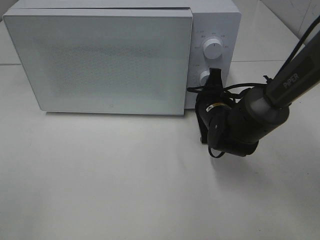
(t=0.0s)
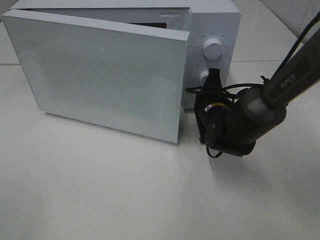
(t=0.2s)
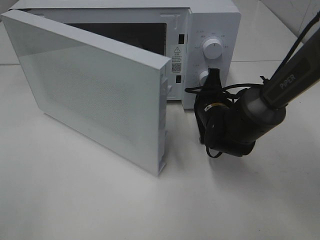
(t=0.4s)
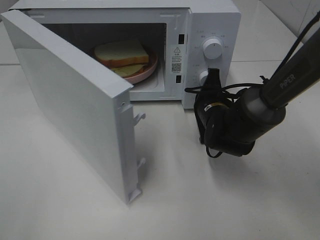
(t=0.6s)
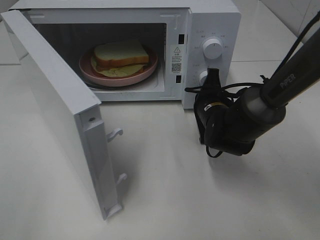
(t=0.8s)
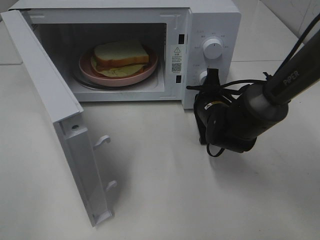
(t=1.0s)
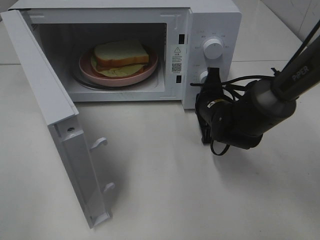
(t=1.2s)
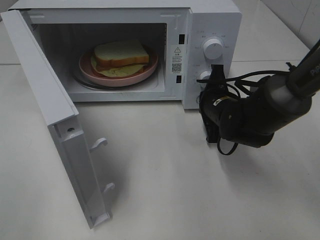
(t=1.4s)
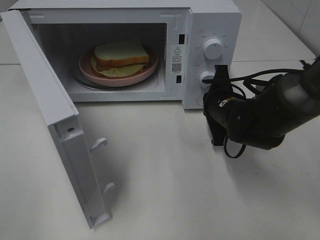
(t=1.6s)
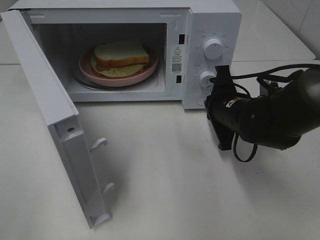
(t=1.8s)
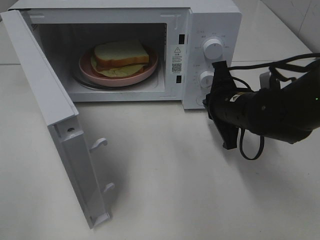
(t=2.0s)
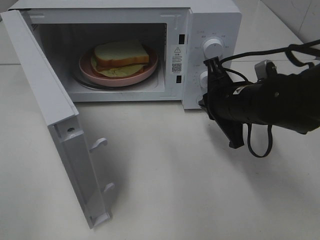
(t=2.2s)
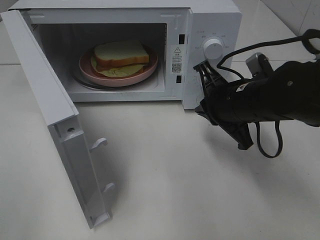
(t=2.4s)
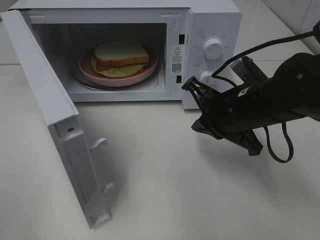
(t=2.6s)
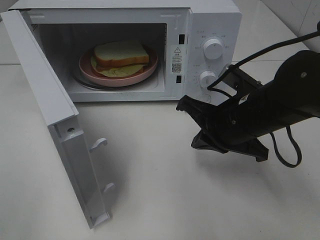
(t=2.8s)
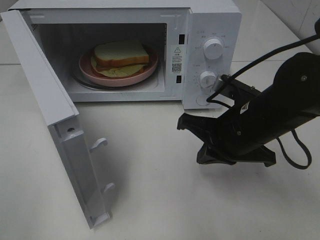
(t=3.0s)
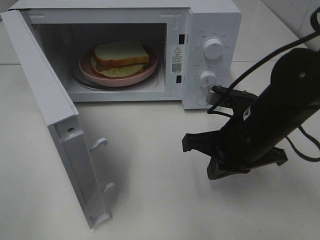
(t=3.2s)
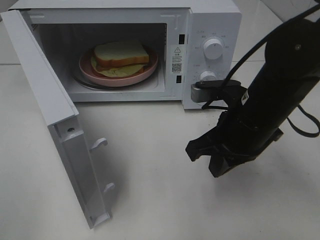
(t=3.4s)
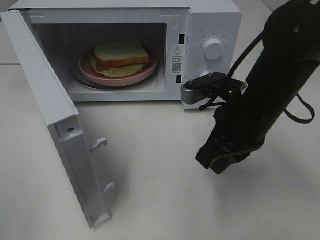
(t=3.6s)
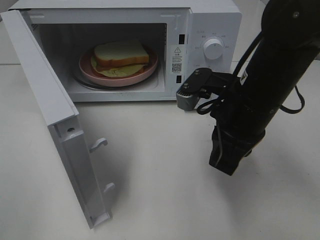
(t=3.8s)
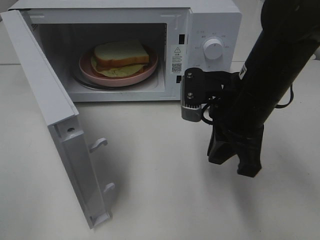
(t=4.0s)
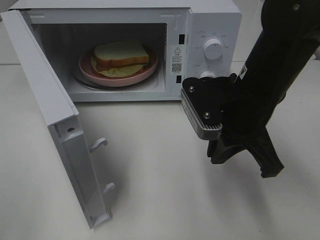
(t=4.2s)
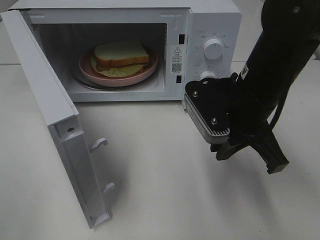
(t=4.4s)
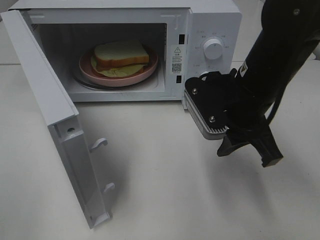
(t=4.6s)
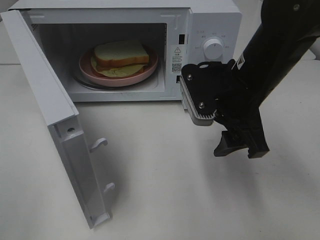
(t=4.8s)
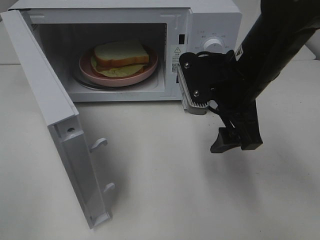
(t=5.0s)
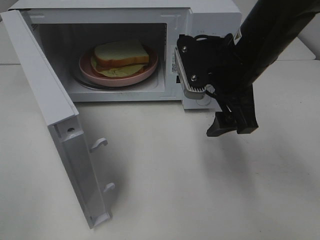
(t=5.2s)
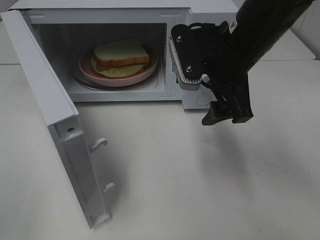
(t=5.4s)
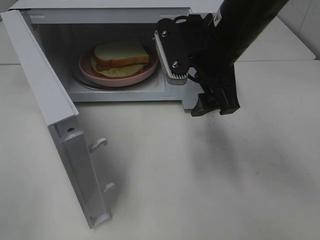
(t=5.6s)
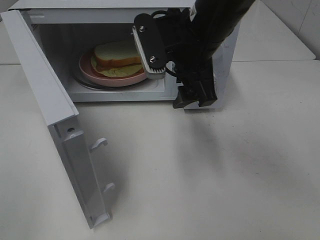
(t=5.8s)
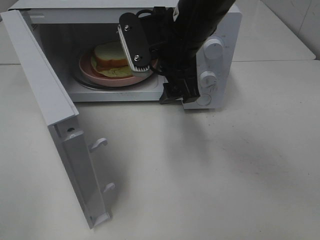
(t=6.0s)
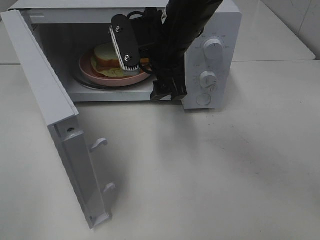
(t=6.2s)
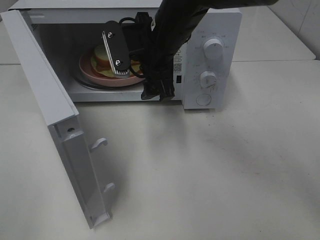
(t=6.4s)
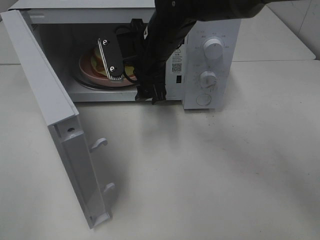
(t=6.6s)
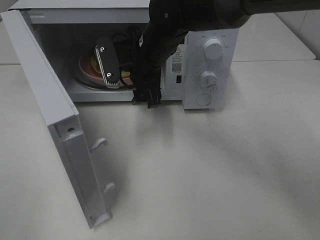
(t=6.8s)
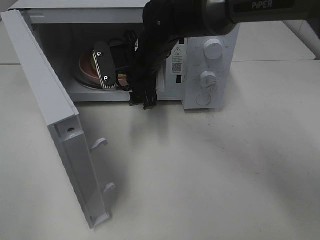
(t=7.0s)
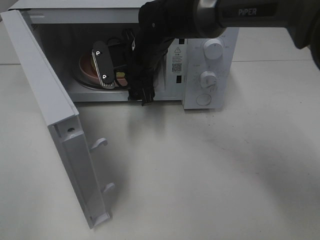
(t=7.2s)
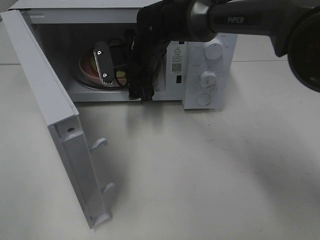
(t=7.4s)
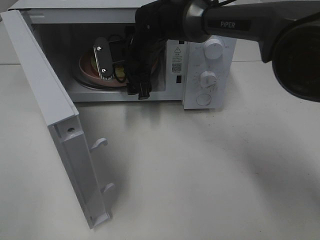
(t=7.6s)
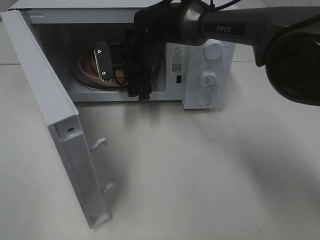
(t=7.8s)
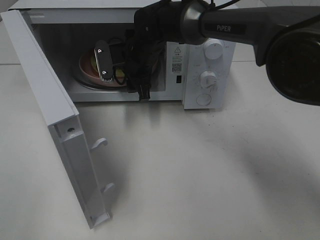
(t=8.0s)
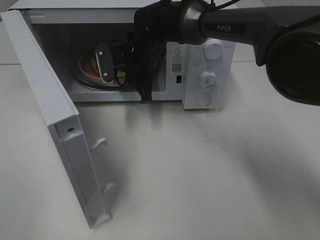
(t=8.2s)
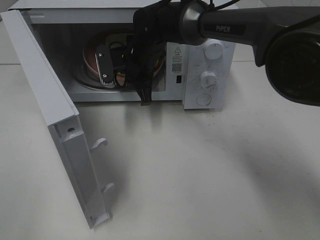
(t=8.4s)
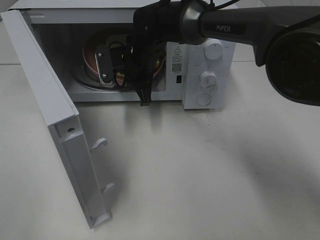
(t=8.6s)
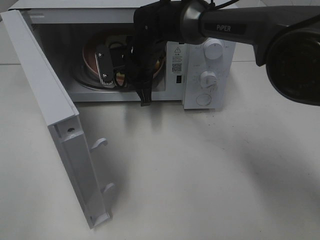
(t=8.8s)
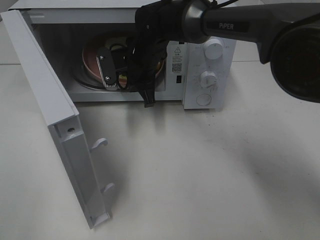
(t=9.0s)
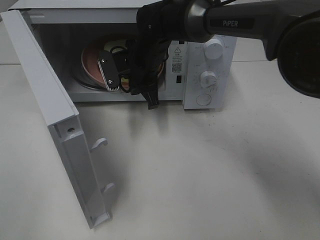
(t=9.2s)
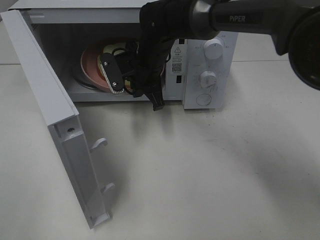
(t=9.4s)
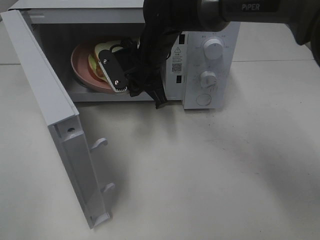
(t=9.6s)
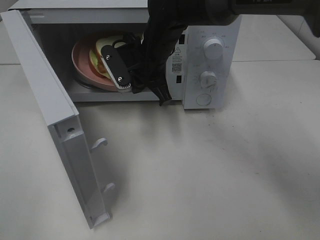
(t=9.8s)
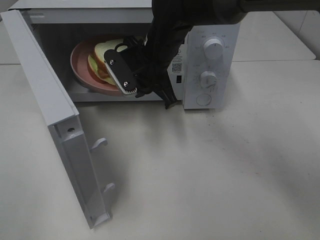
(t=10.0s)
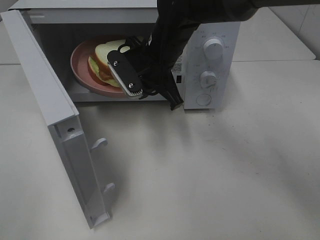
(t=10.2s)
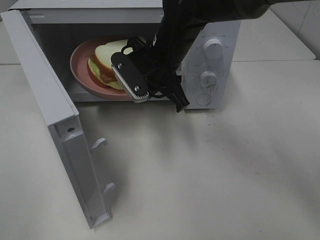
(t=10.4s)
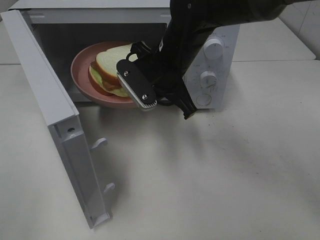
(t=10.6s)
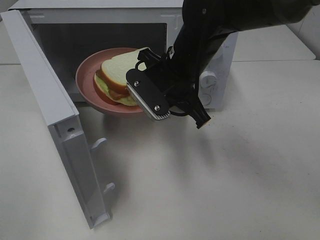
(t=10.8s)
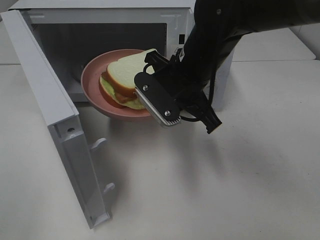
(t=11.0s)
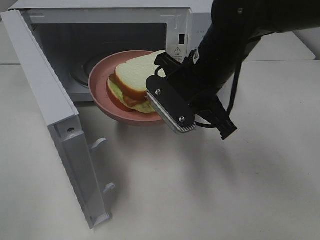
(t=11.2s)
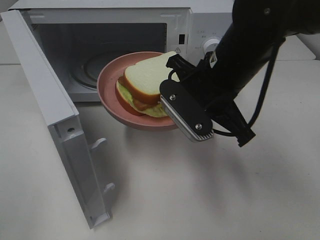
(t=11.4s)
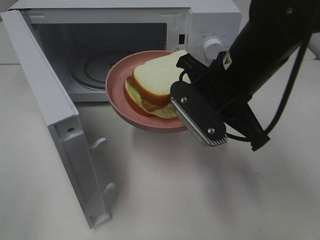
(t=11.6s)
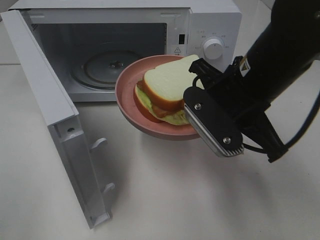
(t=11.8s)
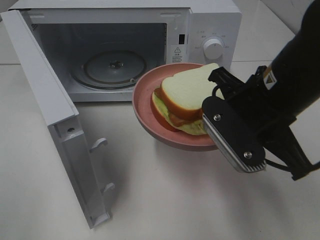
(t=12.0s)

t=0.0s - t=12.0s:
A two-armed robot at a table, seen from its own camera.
Task of the whole recording: Heat Sandwich.
Step, t=2.0s - t=8.2s: Right hand: grab the plate with the sandwich.
t=1.6s - t=3.0s: The right gripper moves backward and upward, some 10 cm.
t=3.0s - t=4.4s: The right gripper travels upward by approximately 5 cm.
t=4.4s - t=6.0s: The right gripper shifts roughly 10 cm to the left and forward, and opens its fingers.
t=6.0s - t=7.6s: The right gripper heads forward, downward and to the left, covering roughly 15 cm.
t=7.6s - t=9.0s: The right gripper closes.
t=9.0s - t=10.4s: The right gripper goes some 5 cm backward.
t=10.4s - t=12.0s: The right gripper travels backward and to the right by approximately 20 cm.

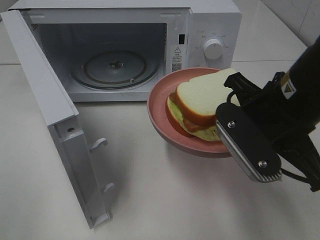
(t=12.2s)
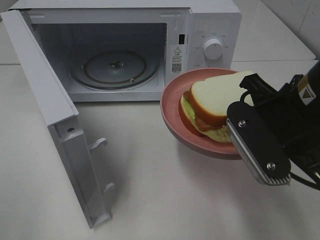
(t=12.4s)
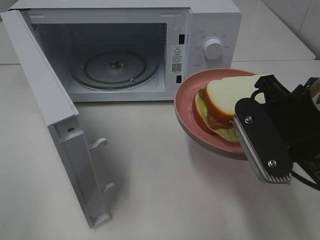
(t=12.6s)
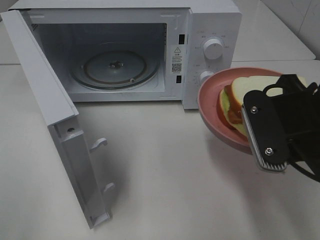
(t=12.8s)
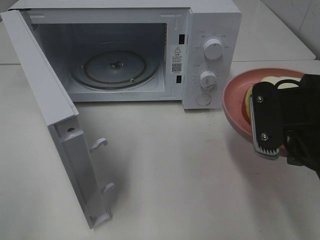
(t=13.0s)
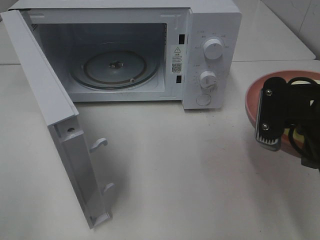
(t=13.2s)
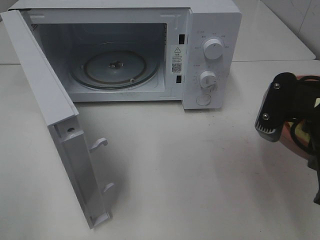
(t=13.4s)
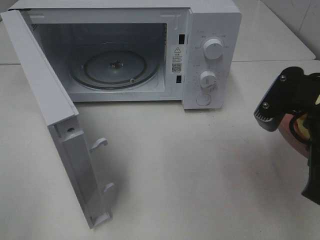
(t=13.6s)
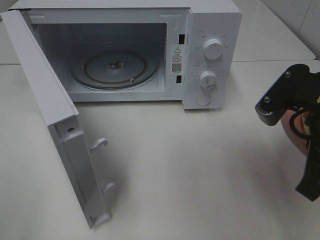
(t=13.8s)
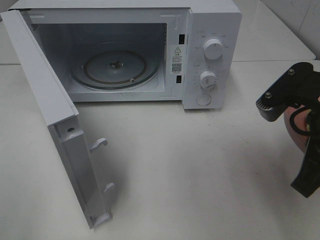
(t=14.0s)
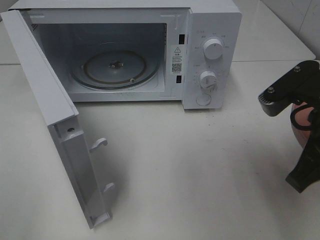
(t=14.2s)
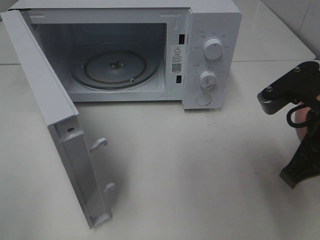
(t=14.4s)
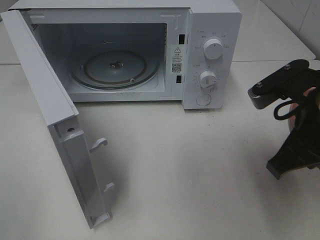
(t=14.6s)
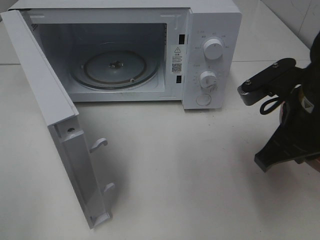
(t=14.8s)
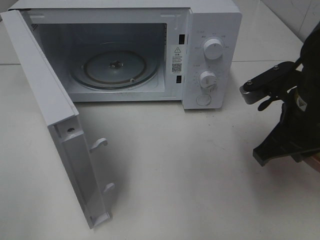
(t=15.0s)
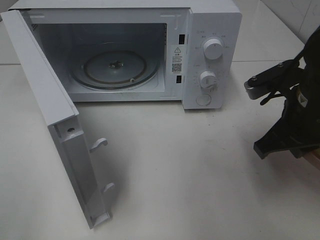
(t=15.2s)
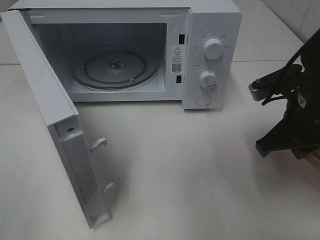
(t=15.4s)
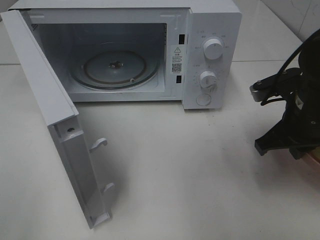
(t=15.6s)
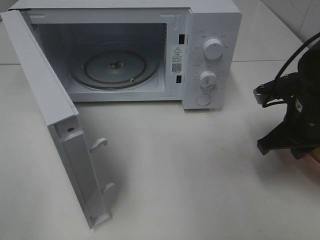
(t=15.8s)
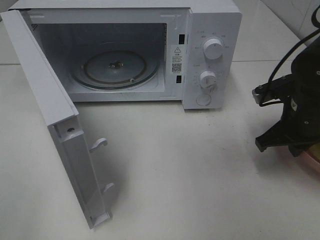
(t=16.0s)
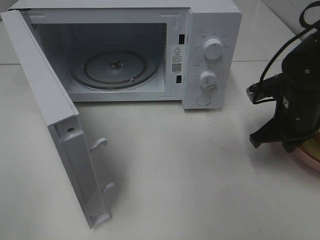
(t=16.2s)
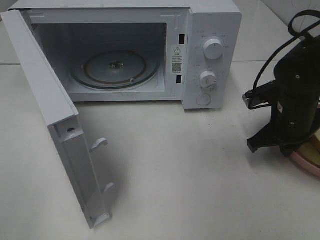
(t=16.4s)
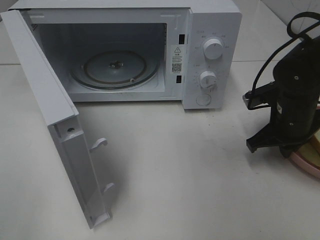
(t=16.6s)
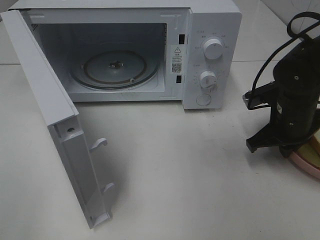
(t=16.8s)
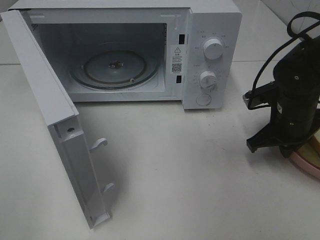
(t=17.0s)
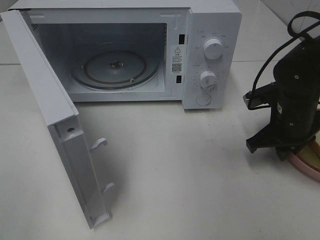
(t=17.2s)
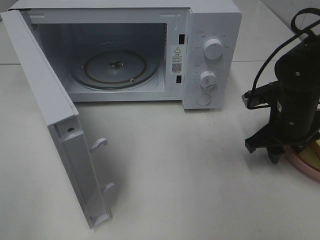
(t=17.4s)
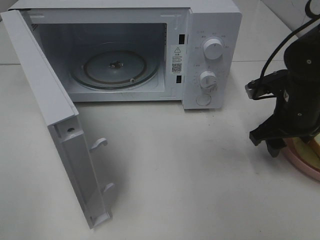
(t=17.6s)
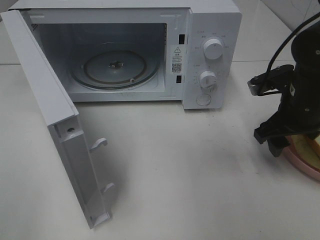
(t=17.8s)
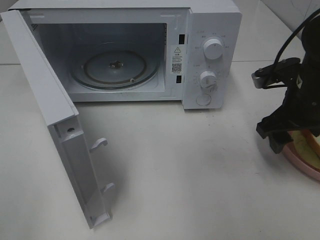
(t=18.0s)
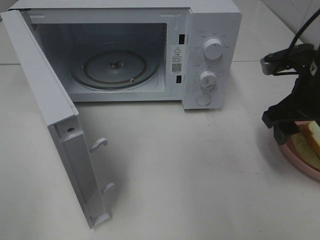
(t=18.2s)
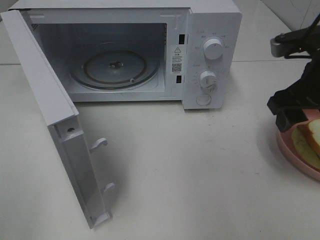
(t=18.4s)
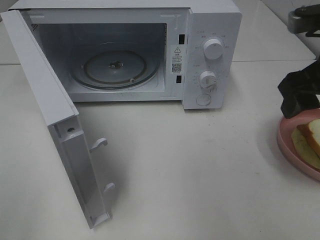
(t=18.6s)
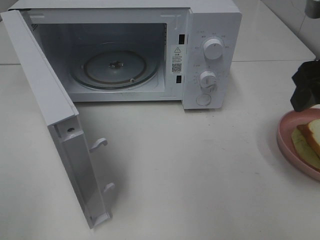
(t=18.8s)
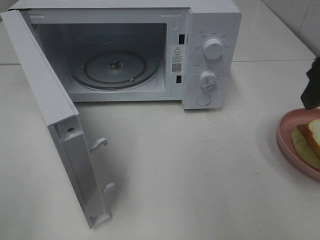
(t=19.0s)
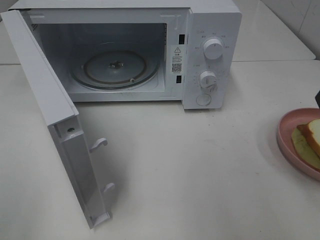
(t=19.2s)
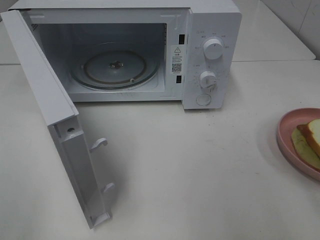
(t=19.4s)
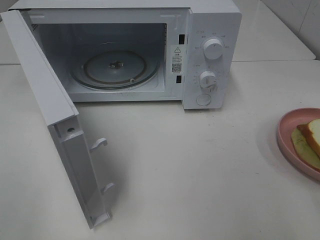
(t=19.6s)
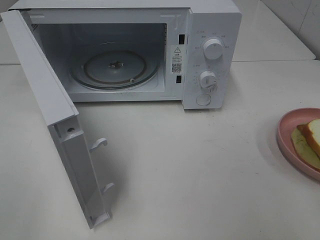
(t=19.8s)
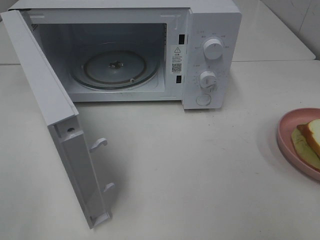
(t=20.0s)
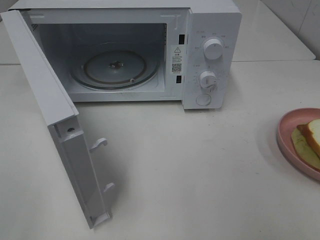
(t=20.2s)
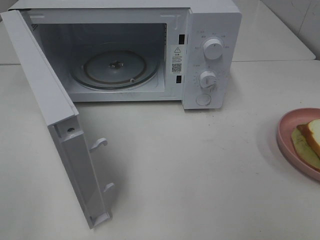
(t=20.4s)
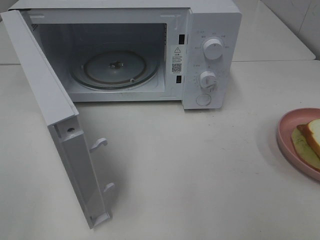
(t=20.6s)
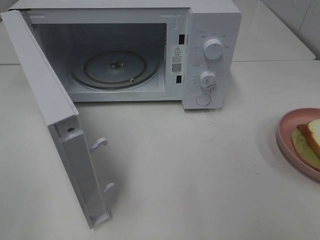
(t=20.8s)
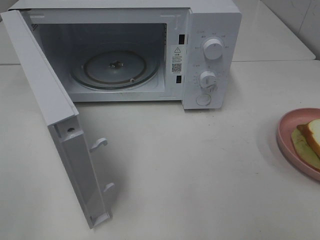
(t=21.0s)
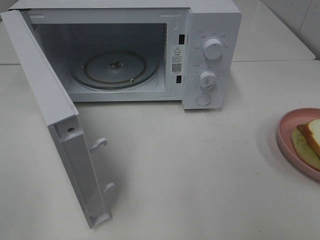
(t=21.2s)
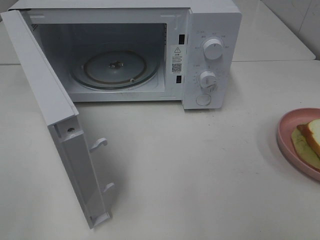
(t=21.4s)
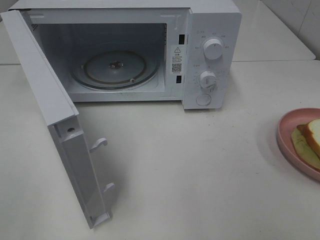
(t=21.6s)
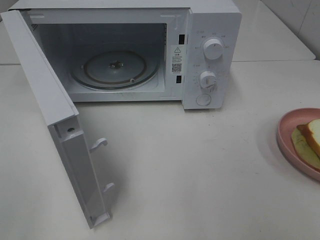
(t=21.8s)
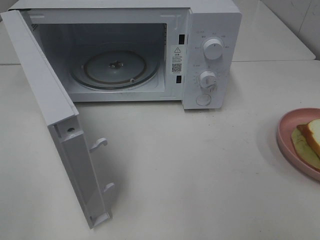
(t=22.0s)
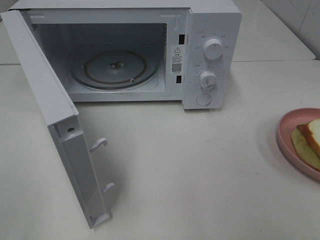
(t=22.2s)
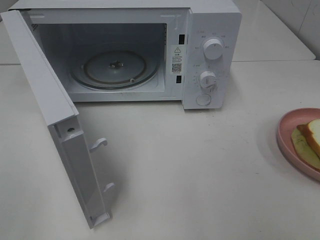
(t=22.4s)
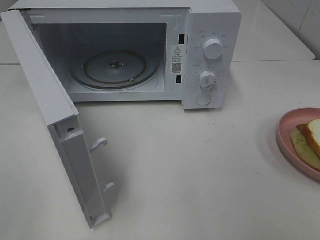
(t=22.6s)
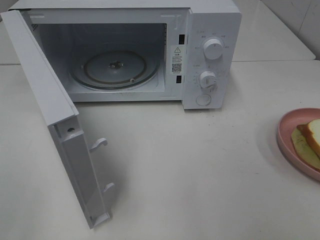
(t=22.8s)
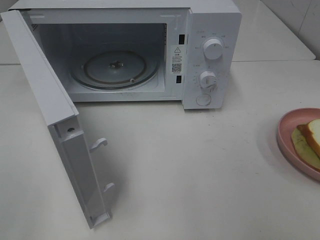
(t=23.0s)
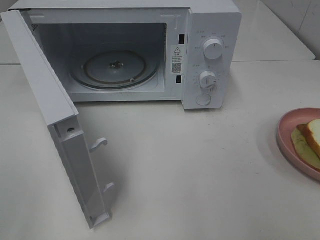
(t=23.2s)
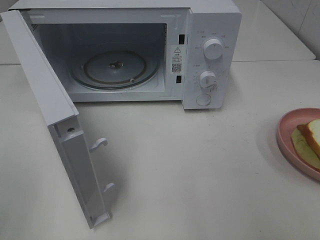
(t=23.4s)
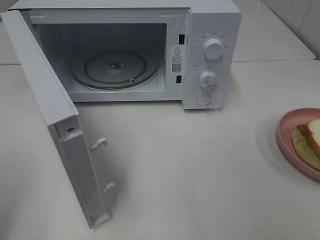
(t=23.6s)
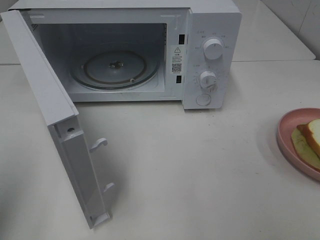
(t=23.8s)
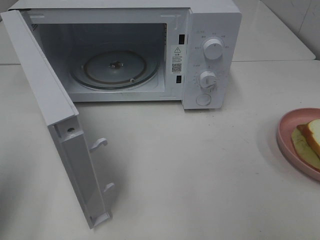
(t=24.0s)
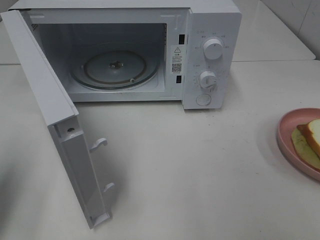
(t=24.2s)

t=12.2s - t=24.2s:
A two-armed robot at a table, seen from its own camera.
Task of the whole recording: Heat Sandwich.
Step, t=12.2s - t=18.2s: Right hand: place the plate on the table.
t=12.2s - t=13.8s: The right gripper moves approximately 5 cm.
t=13.8s - t=15.2s: The right gripper heads forward, covering about 5 cm.
t=15.2s - t=16.6s: The right gripper heads downward and forward, covering about 10 cm.
t=16.6s - t=18.2s: The right gripper travels upward by some 10 cm, and opens up.
t=18.2s - t=19.8s: The right gripper goes about 20 cm backward and upward.
t=21.2s - t=22.6s: Neither gripper changes place.
t=22.6s - t=24.2s: The left gripper is displaced forward by some 15 cm, and closes its fingers.
